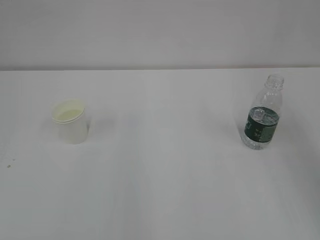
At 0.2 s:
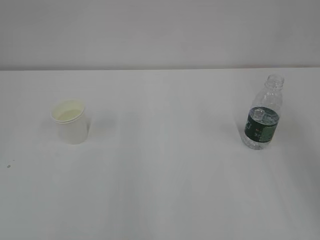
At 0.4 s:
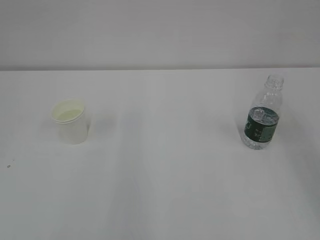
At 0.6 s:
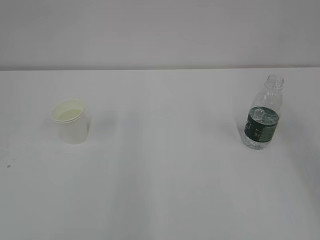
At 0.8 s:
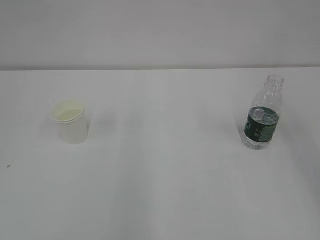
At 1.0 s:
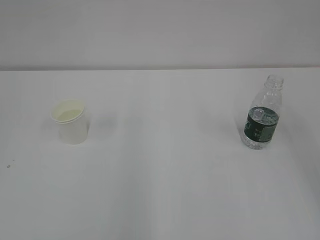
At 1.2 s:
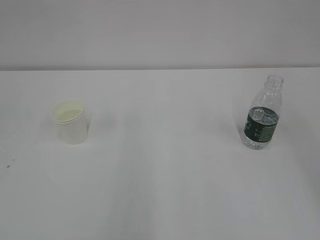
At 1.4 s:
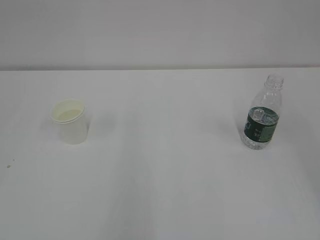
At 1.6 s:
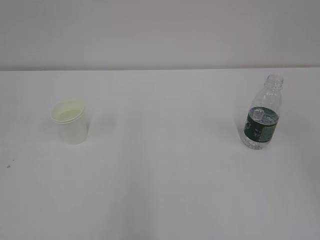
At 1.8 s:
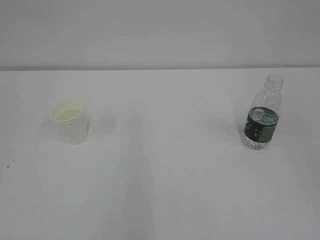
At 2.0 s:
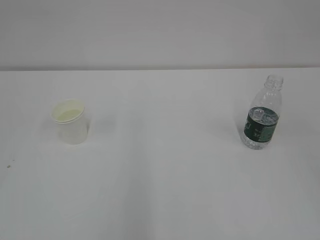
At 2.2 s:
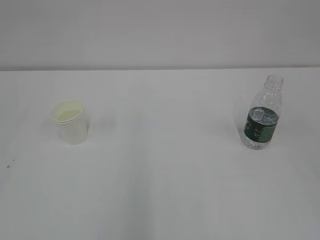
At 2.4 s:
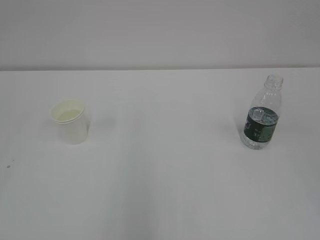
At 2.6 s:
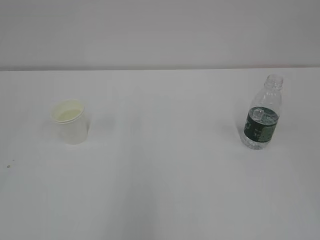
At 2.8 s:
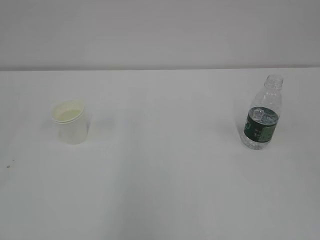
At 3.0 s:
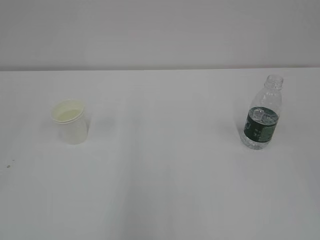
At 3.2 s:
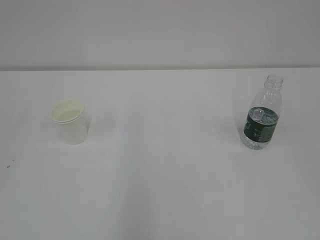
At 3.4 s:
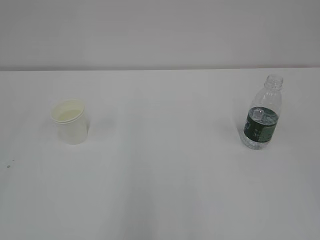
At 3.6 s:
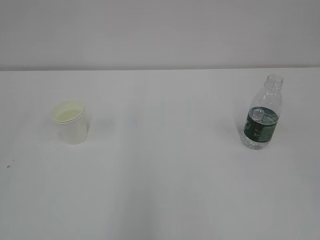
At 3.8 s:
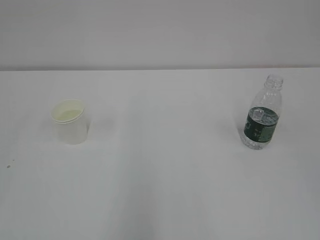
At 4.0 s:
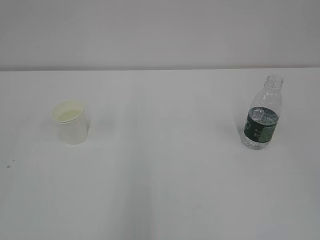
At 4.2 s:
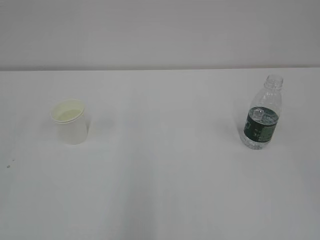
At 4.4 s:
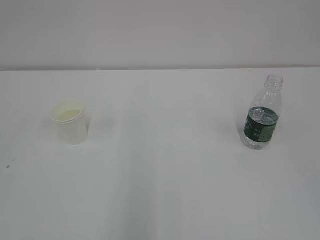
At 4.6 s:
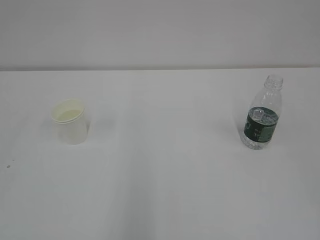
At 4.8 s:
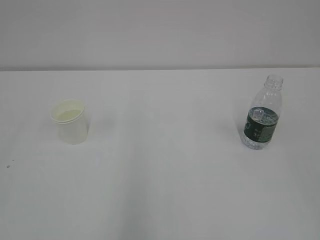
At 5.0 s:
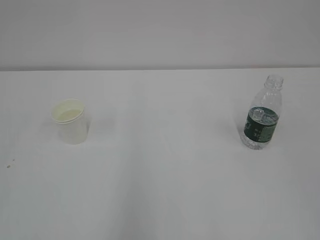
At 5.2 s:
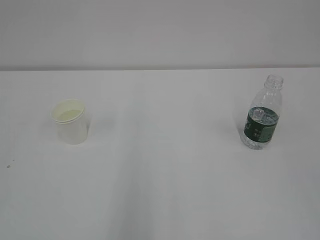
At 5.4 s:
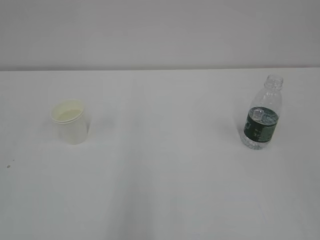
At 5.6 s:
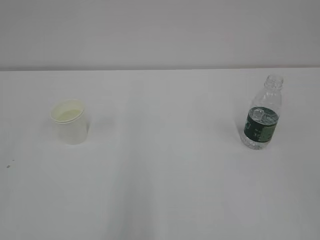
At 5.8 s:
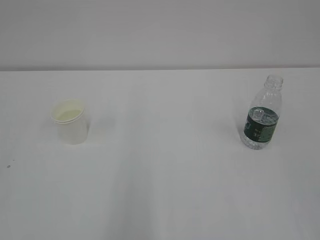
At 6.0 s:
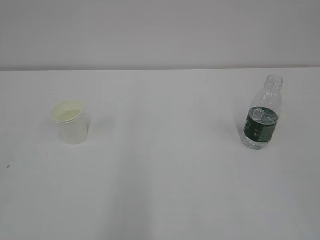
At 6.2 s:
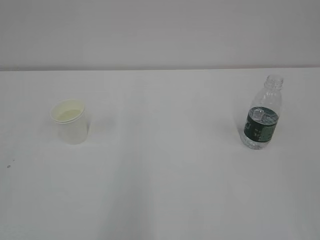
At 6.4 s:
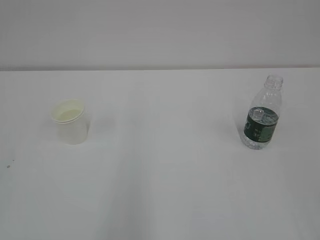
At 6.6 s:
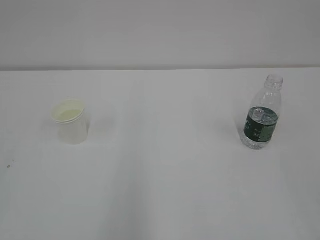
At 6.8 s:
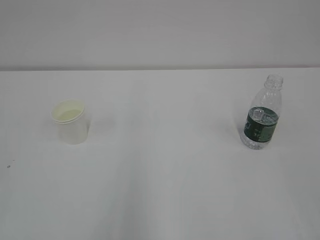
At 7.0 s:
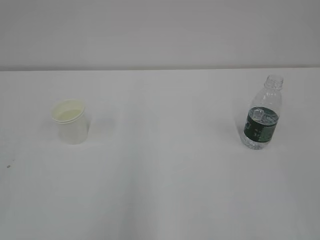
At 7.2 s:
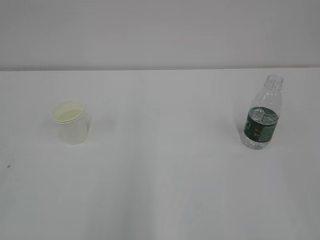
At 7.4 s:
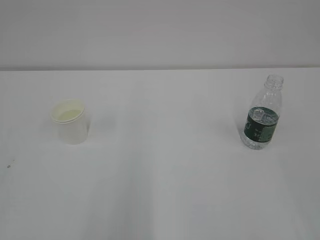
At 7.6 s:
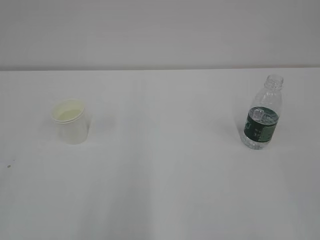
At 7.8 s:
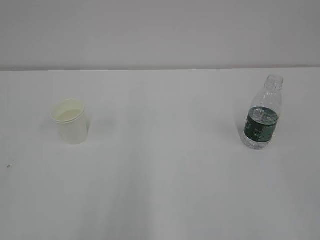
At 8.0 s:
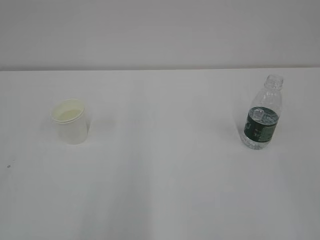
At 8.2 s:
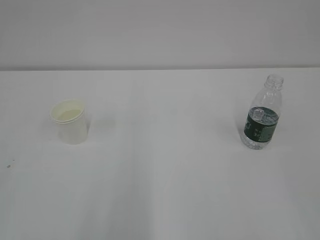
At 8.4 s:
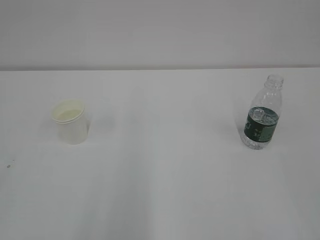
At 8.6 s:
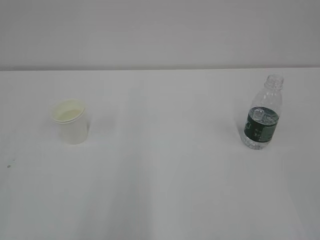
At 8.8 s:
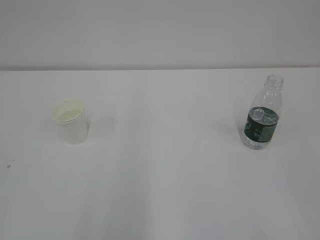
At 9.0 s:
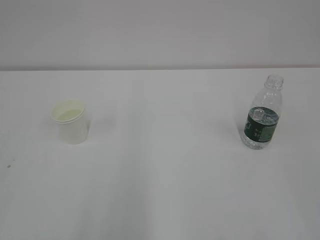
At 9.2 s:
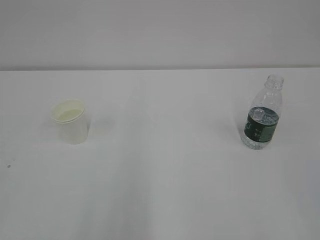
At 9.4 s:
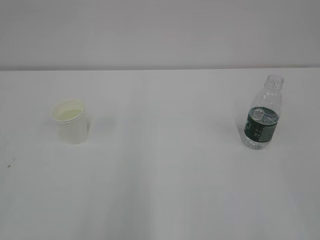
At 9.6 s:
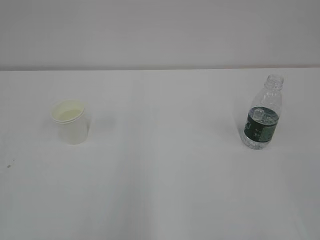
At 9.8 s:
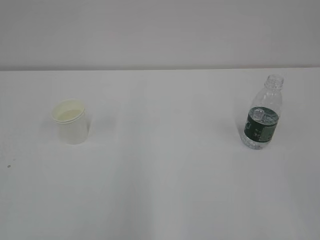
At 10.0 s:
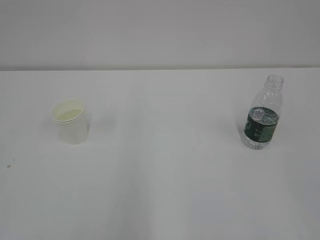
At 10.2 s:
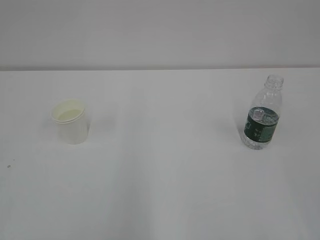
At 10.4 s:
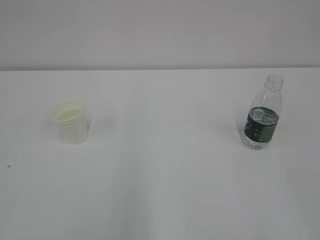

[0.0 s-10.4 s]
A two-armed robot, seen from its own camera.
7.4 to 9.0 s: Both grippers stay about where they are.

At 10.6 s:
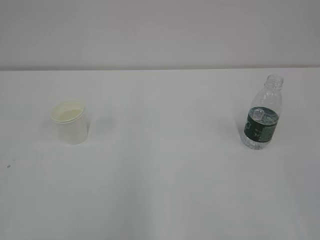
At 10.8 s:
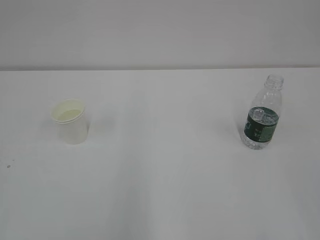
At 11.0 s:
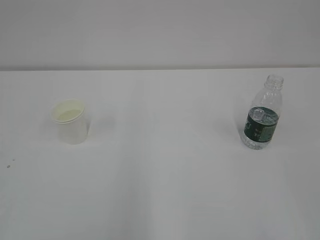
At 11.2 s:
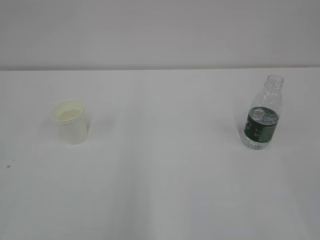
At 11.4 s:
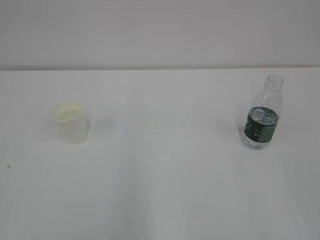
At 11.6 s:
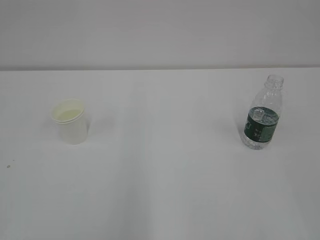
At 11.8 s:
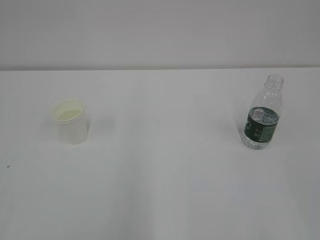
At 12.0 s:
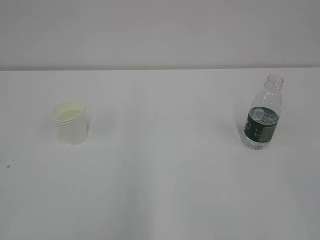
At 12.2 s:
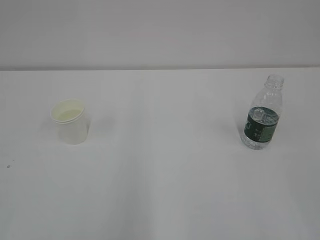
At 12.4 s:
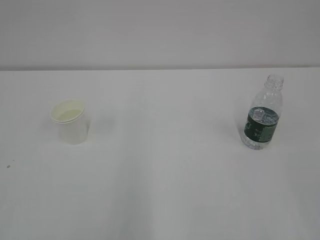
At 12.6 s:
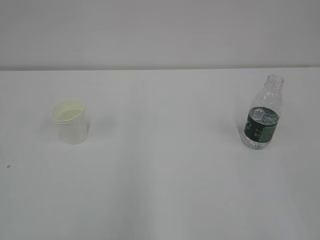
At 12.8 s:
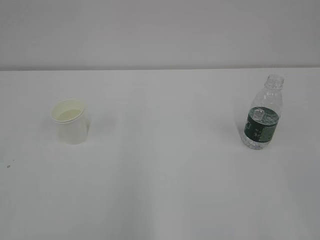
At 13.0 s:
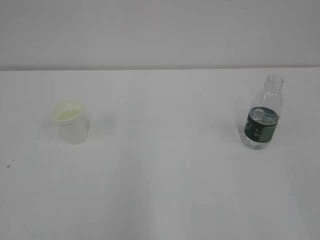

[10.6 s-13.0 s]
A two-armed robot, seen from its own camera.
10.6 to 13.0 s: Both grippers stay put.
